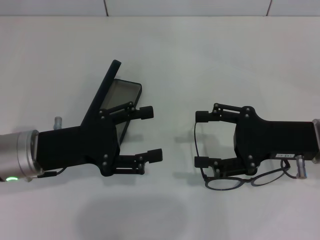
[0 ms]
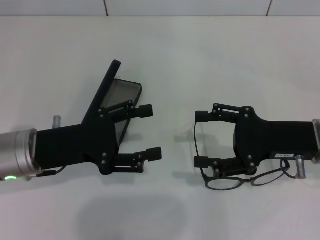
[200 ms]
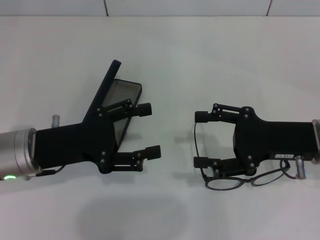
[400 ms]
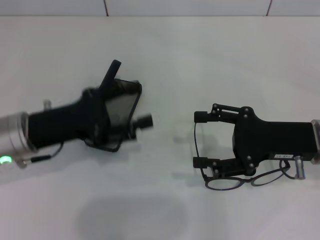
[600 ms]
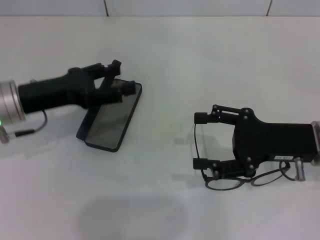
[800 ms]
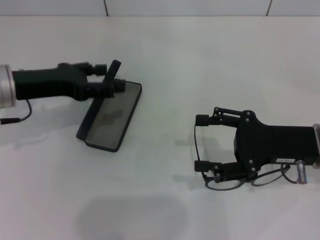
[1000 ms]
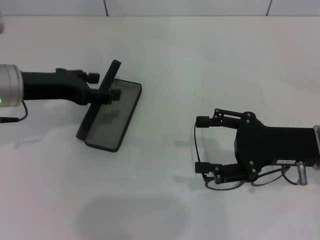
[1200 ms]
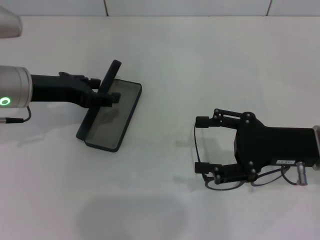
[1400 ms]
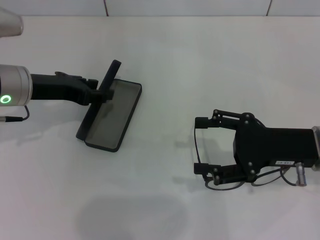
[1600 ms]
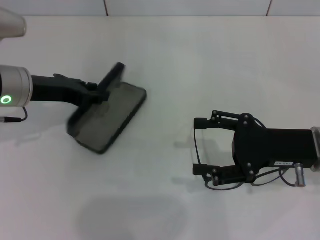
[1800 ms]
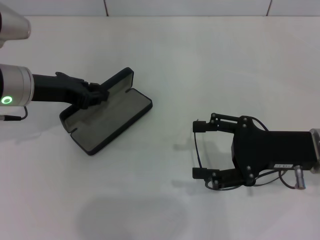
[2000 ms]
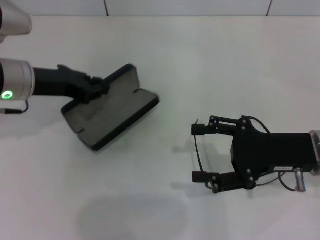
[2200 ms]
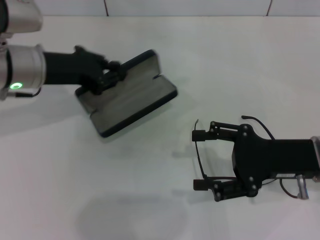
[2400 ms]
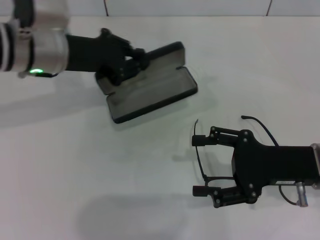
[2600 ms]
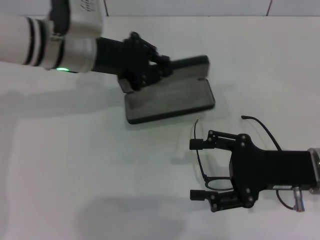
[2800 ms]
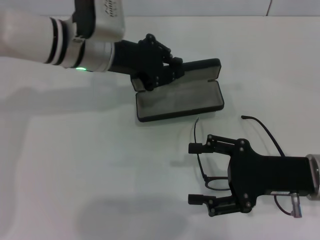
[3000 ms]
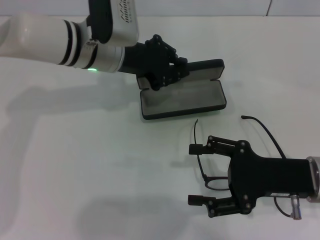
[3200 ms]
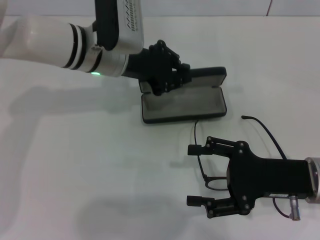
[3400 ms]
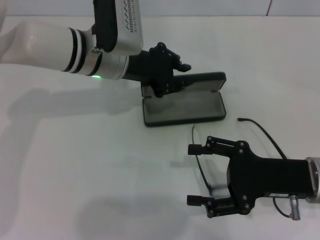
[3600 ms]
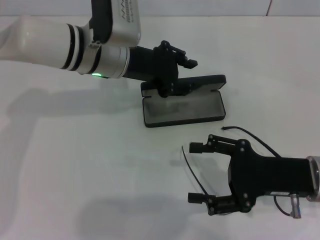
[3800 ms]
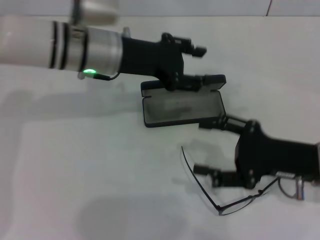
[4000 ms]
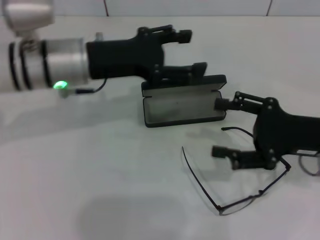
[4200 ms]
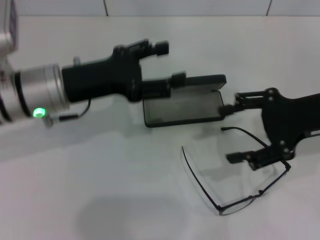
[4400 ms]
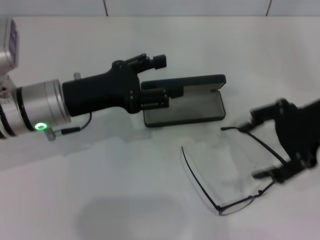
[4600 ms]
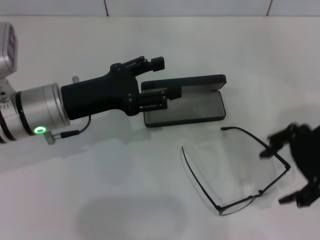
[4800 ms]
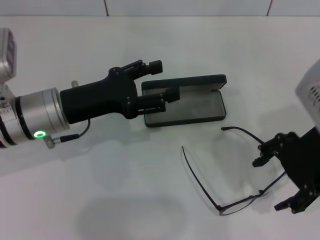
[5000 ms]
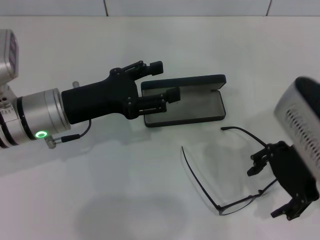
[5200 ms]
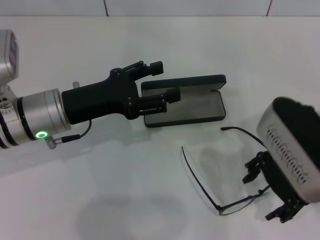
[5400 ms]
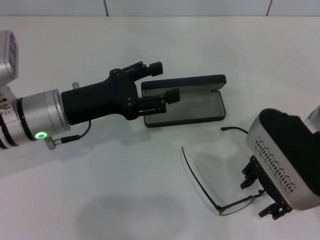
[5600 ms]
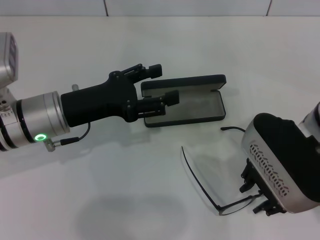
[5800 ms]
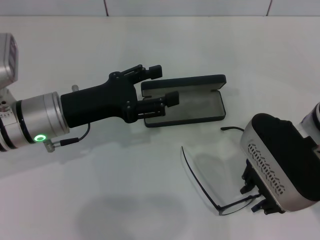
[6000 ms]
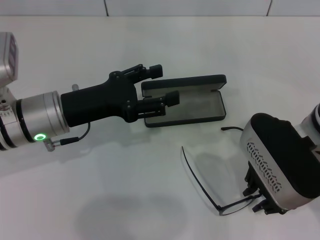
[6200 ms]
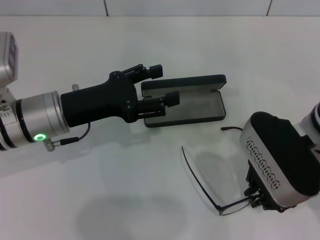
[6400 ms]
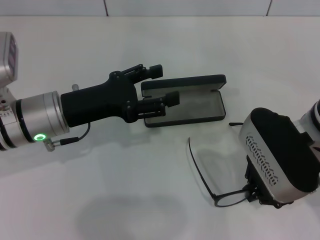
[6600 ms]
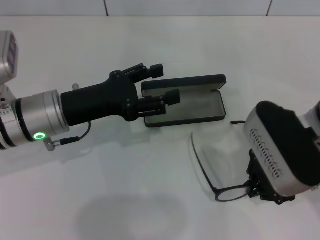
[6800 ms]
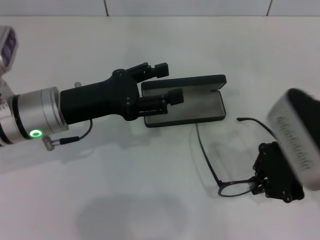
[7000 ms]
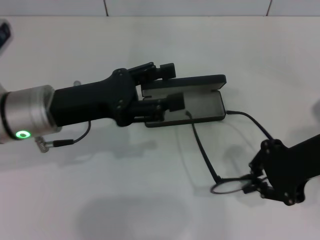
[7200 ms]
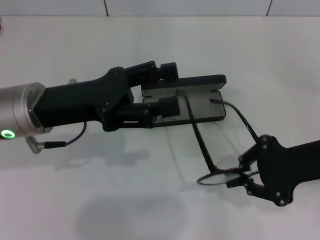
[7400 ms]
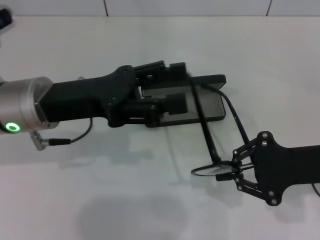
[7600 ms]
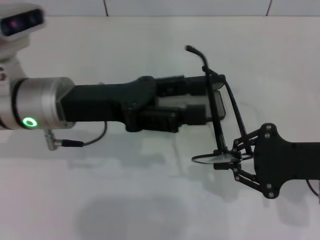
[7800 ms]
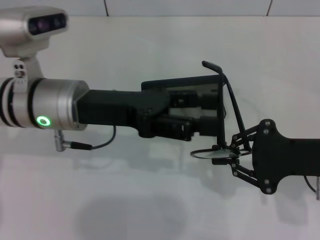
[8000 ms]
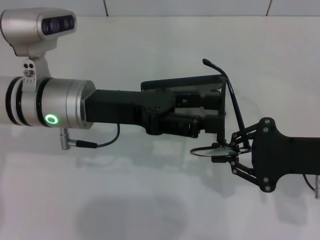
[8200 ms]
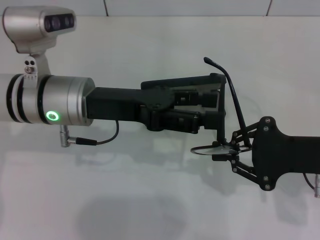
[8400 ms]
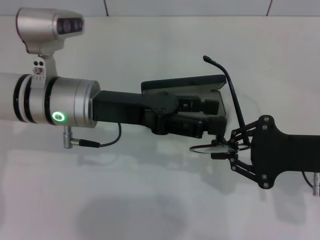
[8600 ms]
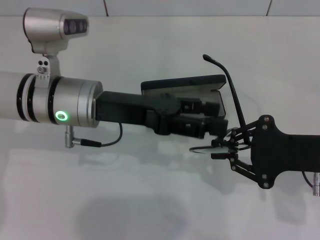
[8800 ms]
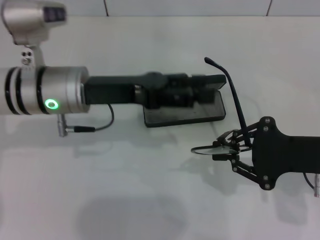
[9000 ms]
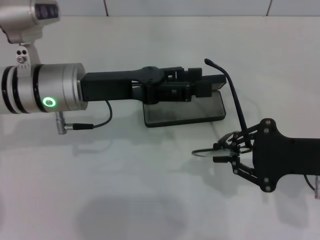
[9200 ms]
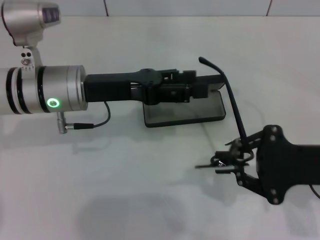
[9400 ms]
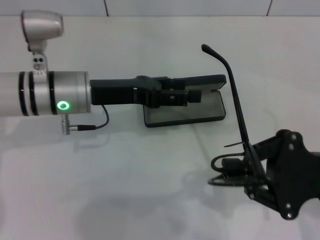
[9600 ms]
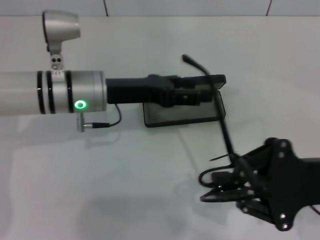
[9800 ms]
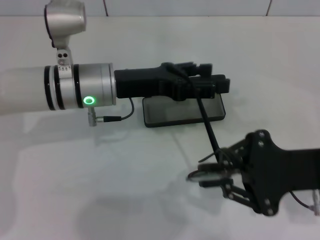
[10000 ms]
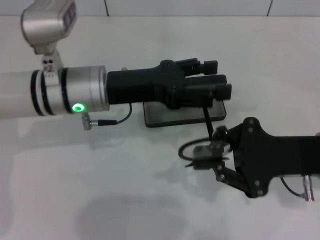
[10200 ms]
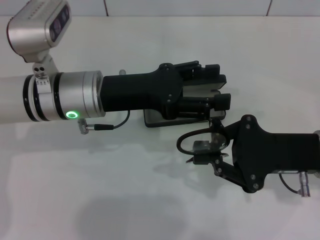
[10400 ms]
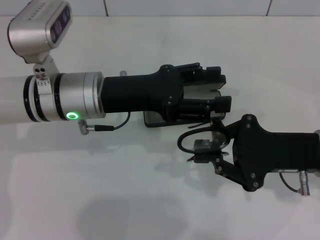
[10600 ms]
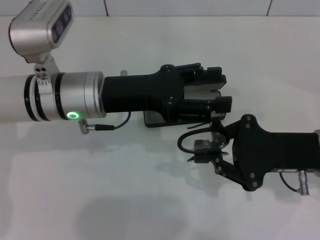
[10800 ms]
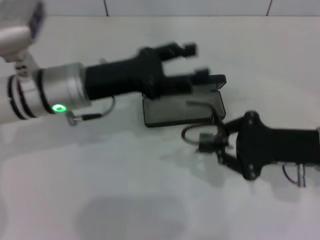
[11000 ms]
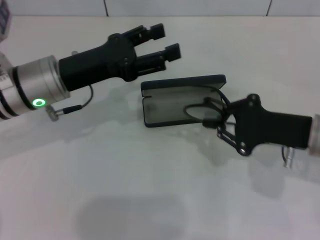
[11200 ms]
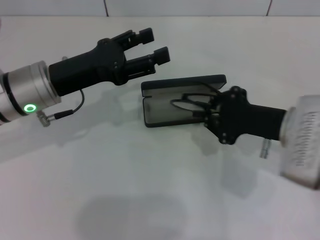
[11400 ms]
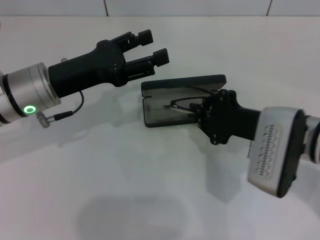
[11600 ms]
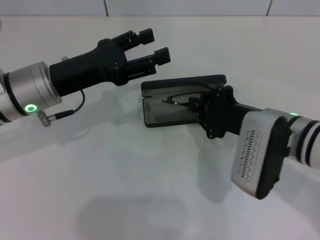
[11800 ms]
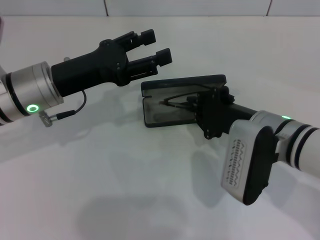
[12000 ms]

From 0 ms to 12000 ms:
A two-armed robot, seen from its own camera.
Step, from 0 ms to 1800 ms: Grab the glasses case with your left hand.
Step, from 2000 ms to 3600 ms: Place the glasses case in the center of the table with your left hand.
Step, from 4000 ms to 6200 ms: Grab the eyeglass frame with your right hand.
Step, from 6400 ms to 10800 ms: Fold the frame with your left hand.
From 0 ms to 1600 ms: The left gripper moves forward, some 10 cm.
From 1600 ms to 3000 ms: The left gripper shifts about 10 cm to the right and forward, and closes up.
From 3000 ms to 4400 ms: The left gripper shifts some 10 cm backward and to the left, and opens its fingers. The right gripper is displaced upward and forward by some 10 cm.
From 4400 ms to 6000 ms: The right gripper moves to the left, some 10 cm, and closes up.
From 6000 ms to 7600 ms: The right gripper is displaced to the right by about 10 cm, and closes.
From 10400 ms to 12000 ms: Both grippers travel together to the left, about 5 cm.

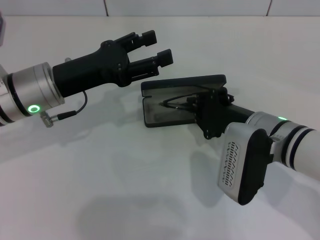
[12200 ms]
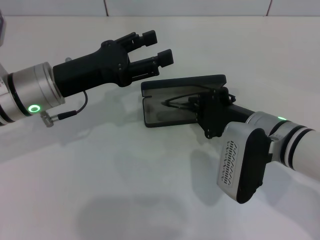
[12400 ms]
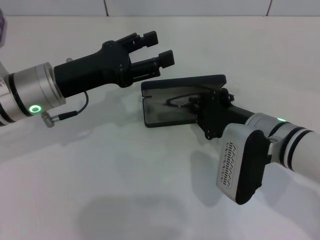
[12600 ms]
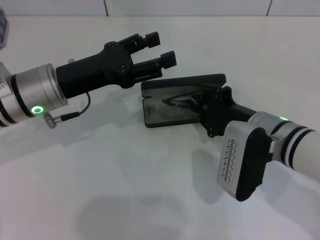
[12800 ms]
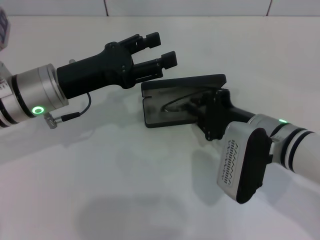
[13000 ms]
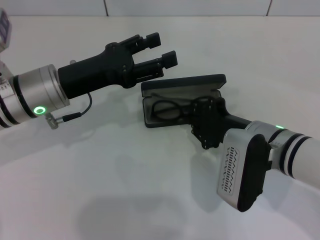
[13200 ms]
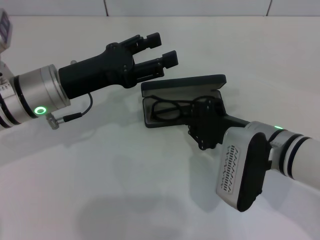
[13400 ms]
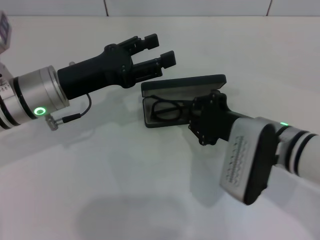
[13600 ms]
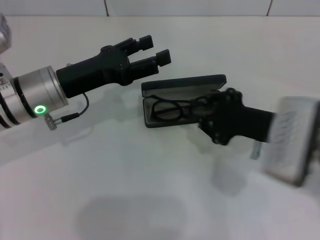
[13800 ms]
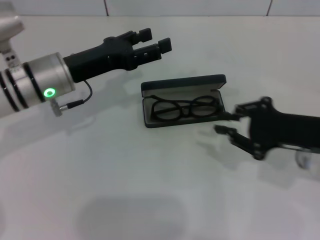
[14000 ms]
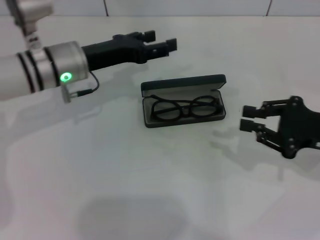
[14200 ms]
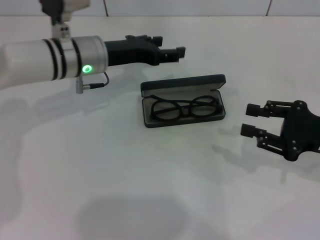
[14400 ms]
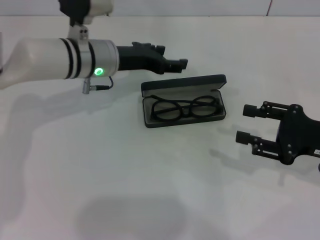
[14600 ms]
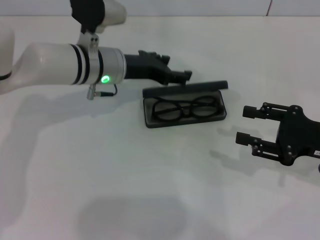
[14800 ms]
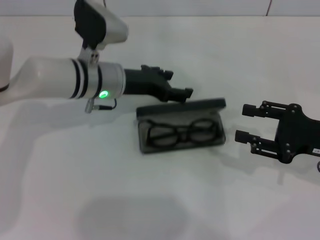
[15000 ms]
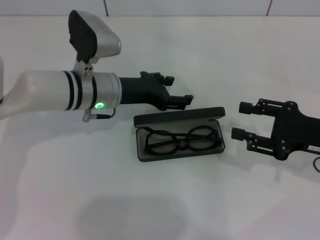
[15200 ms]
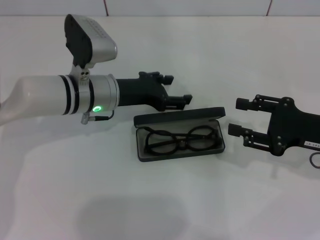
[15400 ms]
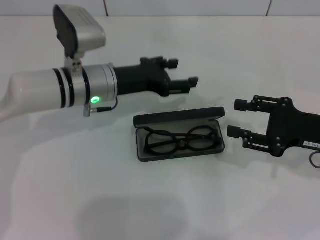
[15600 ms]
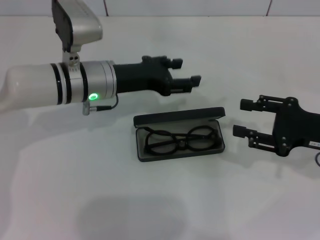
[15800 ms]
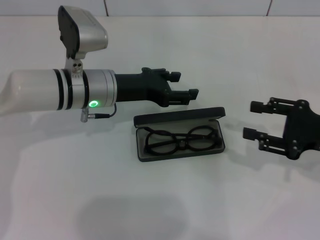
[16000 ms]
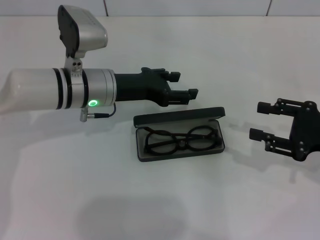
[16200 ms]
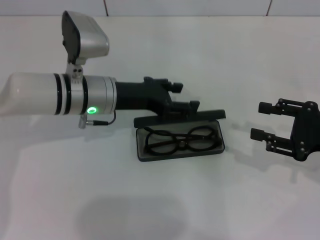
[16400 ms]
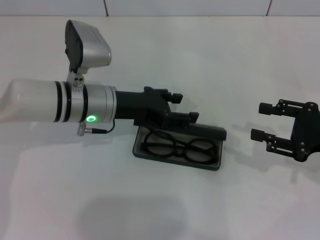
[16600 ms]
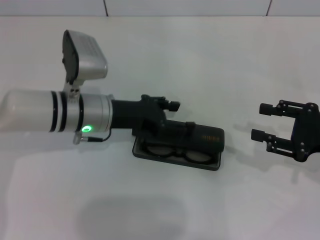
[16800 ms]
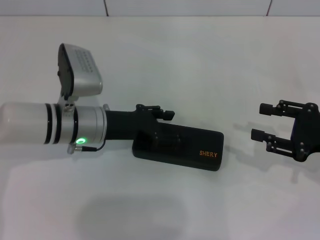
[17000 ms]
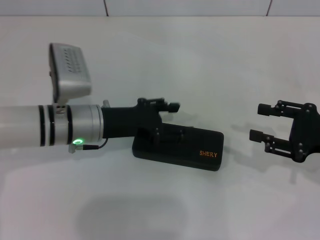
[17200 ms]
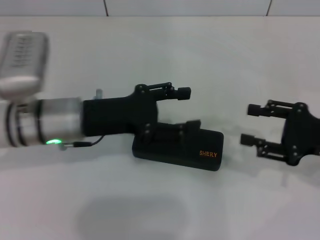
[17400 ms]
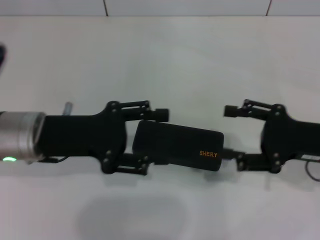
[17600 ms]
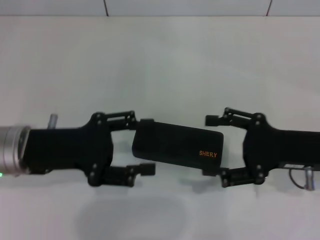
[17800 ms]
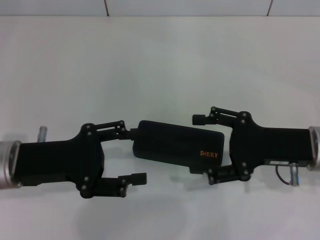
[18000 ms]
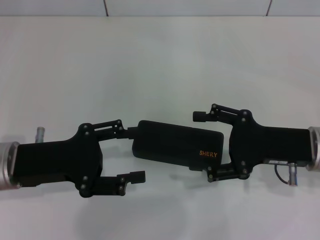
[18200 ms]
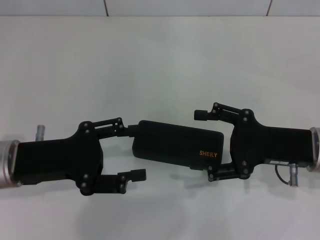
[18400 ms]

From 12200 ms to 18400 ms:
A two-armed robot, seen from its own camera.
Step, from 13600 ms to 17000 ms: Close the glasses case with your left hand.
From 13800 ms to 15400 ms: The right gripper moves to the right, some 10 cm, and opens up; the left gripper shifts some 5 cm to the right.
From 15400 ms to 16800 ms: The grippers move only a little.
From 16800 ms to 18400 ms: The right gripper is displaced to the left by roughly 10 cm, and opens up, while the left gripper heads backward and to the left, covering approximately 15 cm.

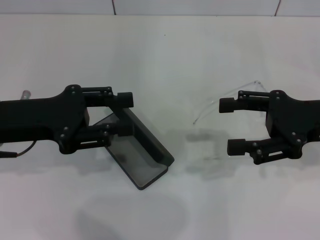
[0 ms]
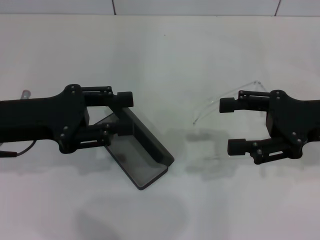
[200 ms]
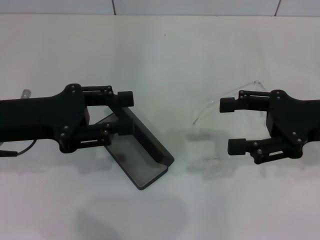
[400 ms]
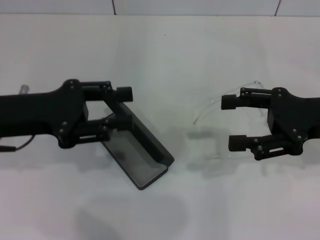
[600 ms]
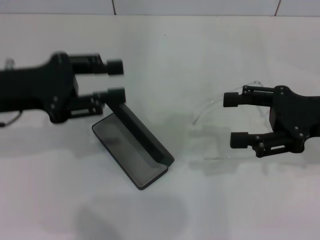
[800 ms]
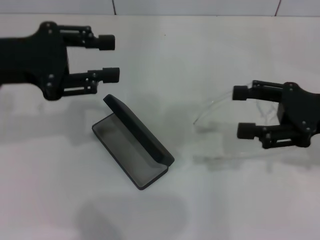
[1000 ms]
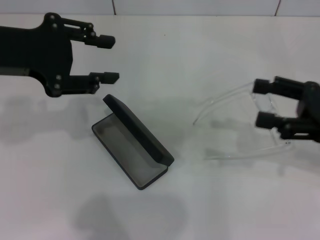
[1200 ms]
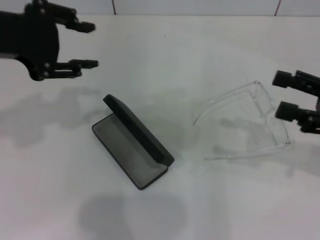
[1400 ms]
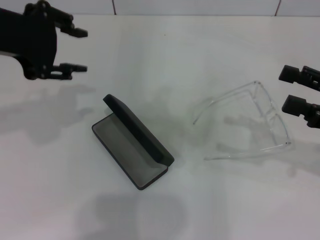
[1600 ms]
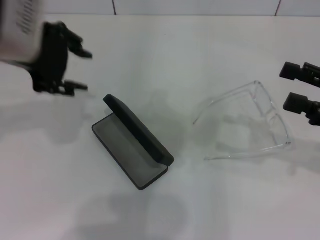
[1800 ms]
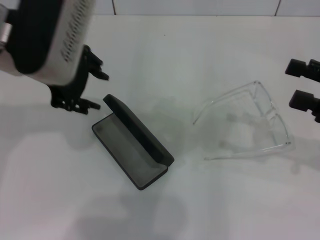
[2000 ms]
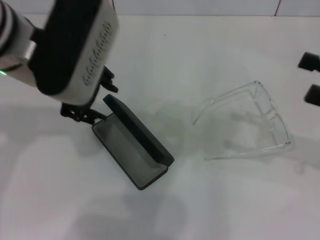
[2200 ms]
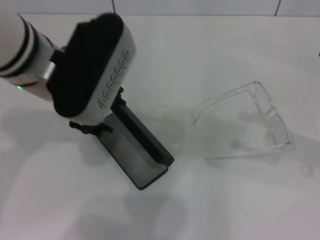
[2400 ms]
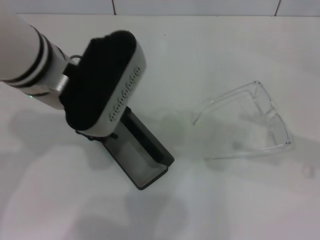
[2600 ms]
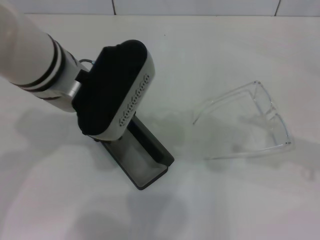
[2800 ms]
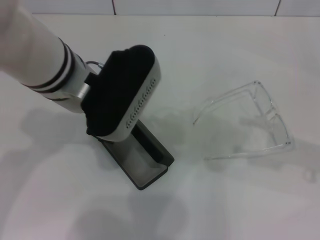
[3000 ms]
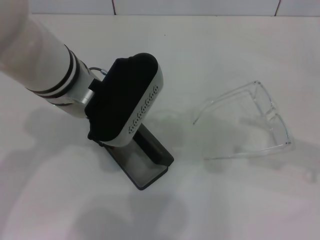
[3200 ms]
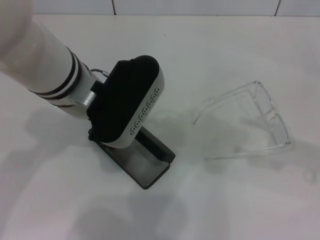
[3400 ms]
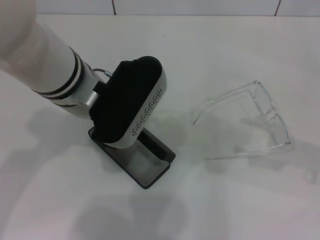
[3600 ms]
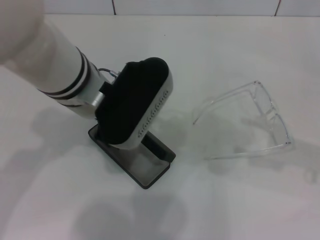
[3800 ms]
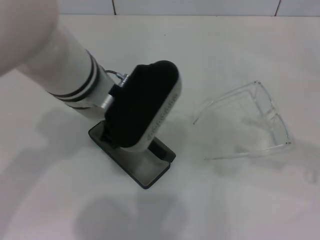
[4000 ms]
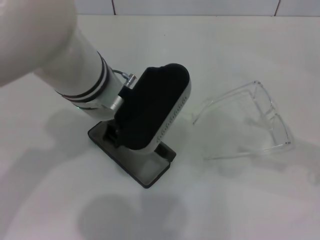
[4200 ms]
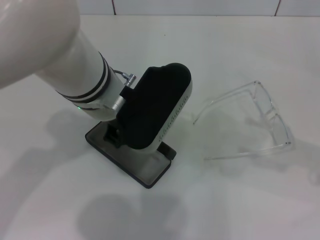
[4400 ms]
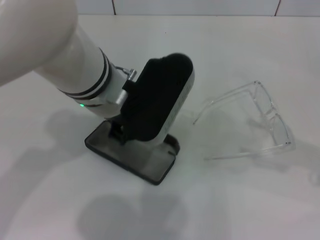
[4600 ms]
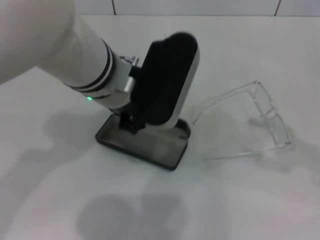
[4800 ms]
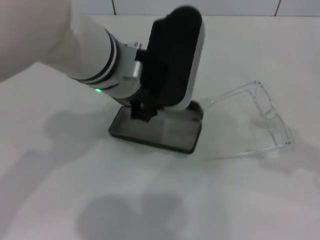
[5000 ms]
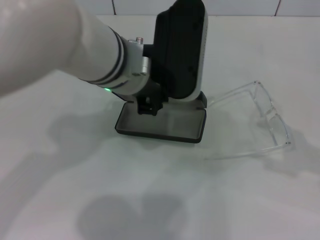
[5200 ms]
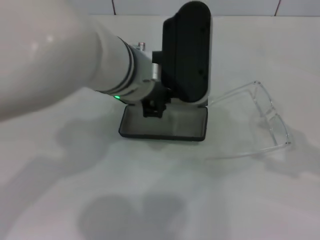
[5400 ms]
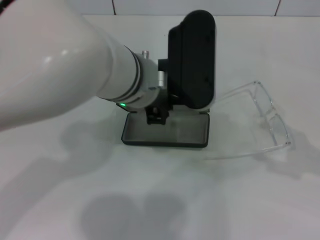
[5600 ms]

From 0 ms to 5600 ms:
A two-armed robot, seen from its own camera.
Step, from 0 ms to 4400 ms: Grab the glasses case with your left hand.
From 0 ms to 1400 ms: The left gripper goes about 15 cm upward; the right gripper travels to the right by some 5 cm.
From 1400 ms to 2800 ms: The left gripper moves to the right and downward, roughly 15 cm.
From 2800 ms to 4200 ms: The grippers move only a little.
From 4200 ms to 5600 ms: The left gripper closes.
